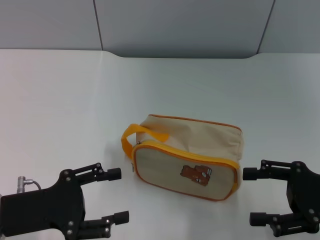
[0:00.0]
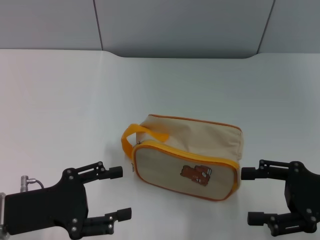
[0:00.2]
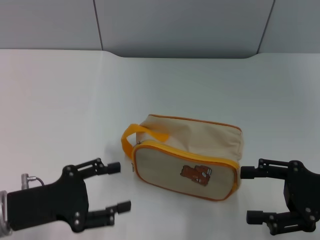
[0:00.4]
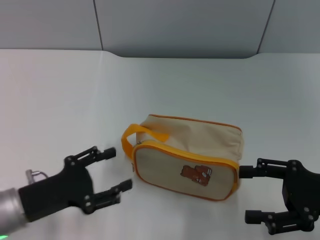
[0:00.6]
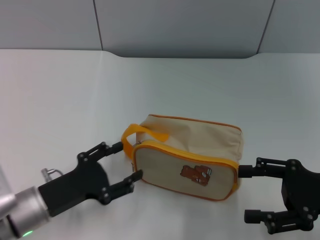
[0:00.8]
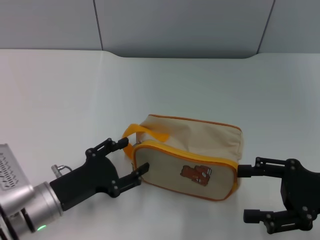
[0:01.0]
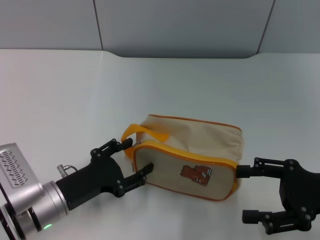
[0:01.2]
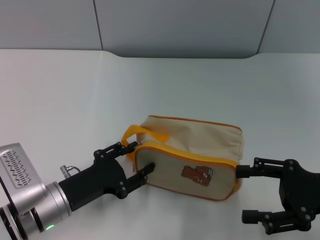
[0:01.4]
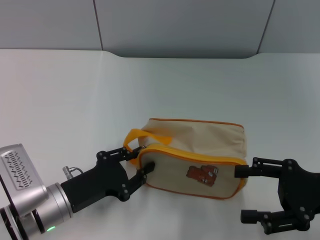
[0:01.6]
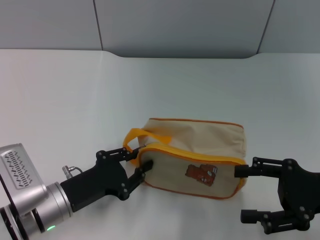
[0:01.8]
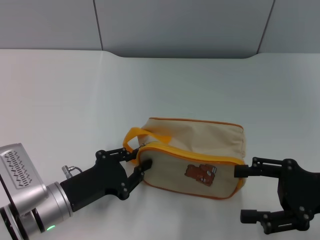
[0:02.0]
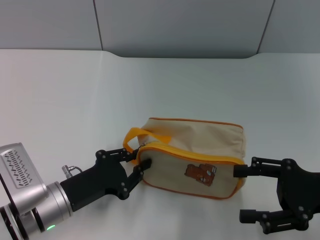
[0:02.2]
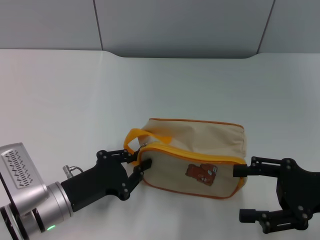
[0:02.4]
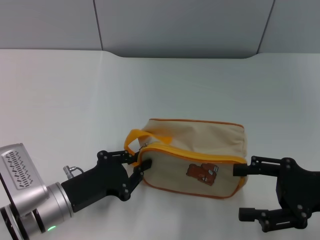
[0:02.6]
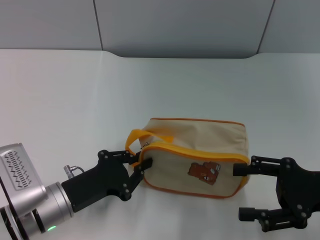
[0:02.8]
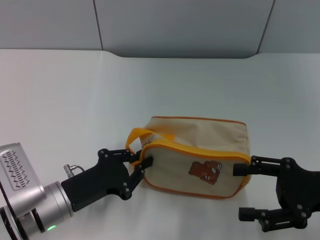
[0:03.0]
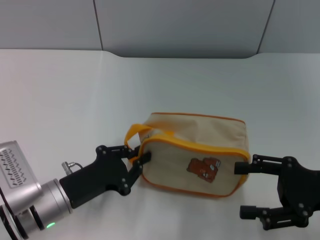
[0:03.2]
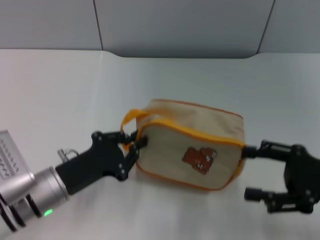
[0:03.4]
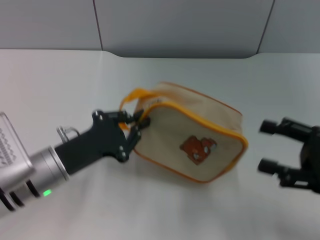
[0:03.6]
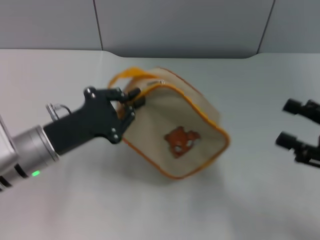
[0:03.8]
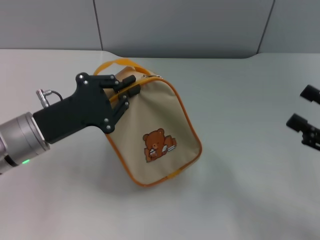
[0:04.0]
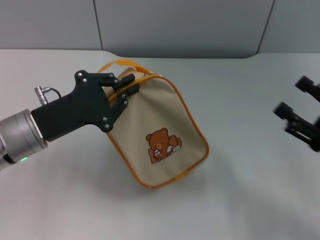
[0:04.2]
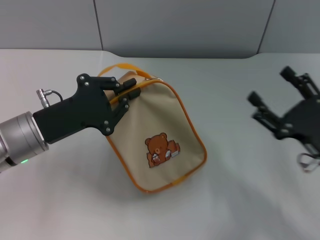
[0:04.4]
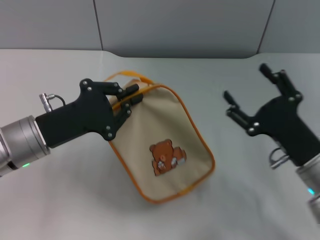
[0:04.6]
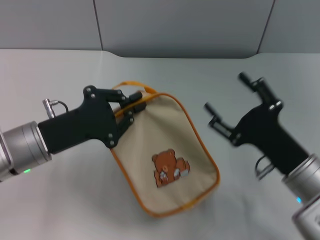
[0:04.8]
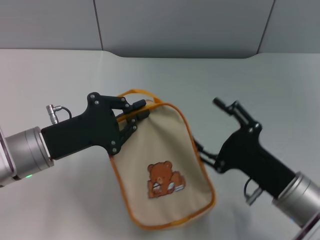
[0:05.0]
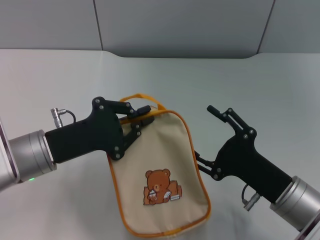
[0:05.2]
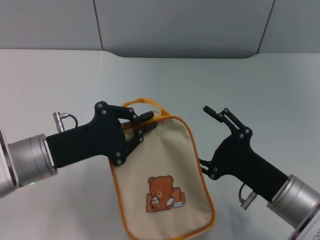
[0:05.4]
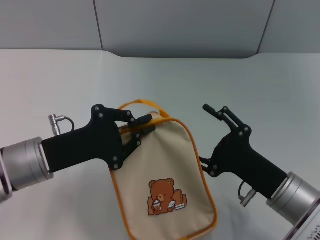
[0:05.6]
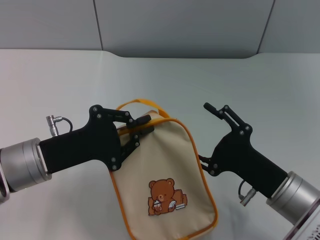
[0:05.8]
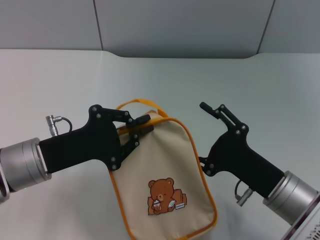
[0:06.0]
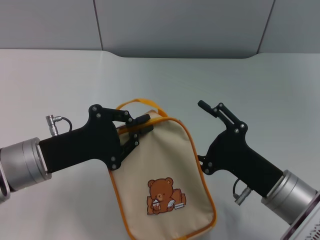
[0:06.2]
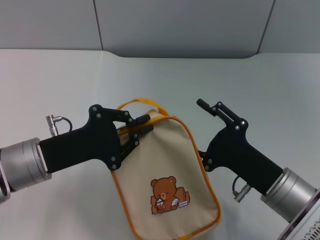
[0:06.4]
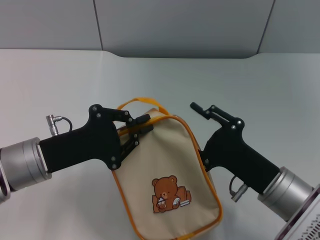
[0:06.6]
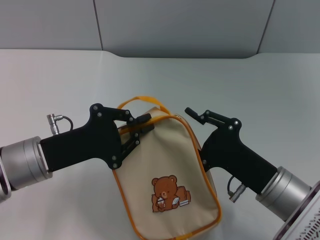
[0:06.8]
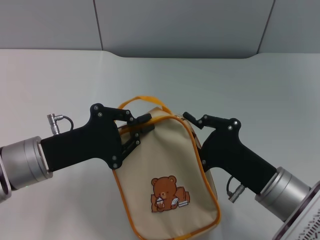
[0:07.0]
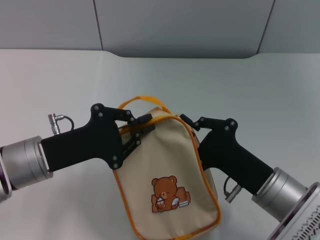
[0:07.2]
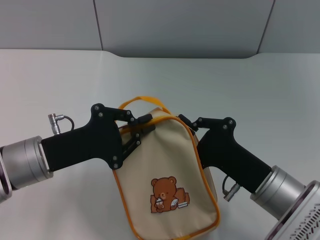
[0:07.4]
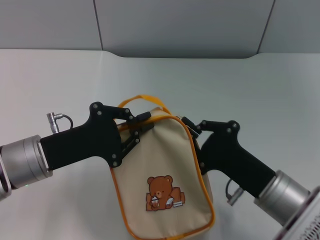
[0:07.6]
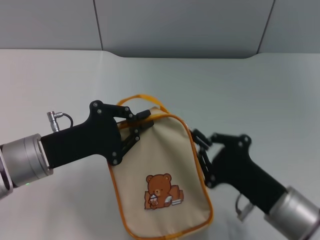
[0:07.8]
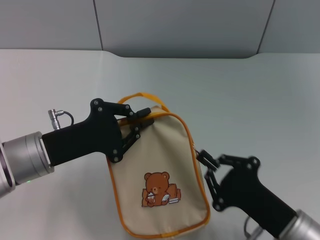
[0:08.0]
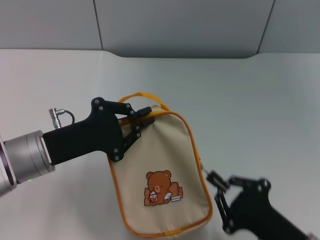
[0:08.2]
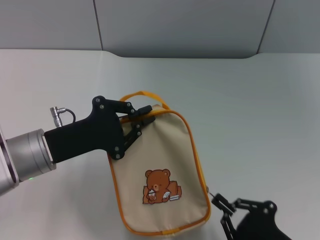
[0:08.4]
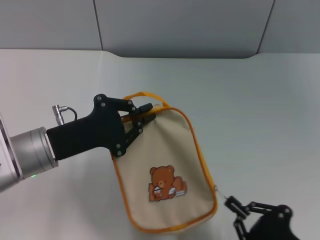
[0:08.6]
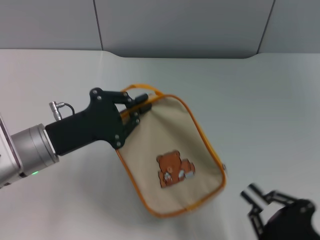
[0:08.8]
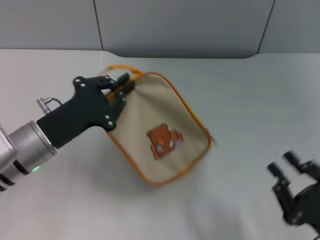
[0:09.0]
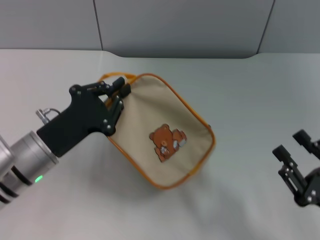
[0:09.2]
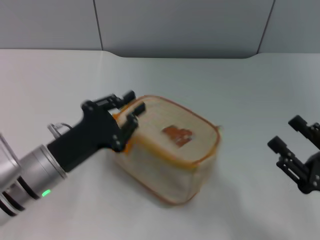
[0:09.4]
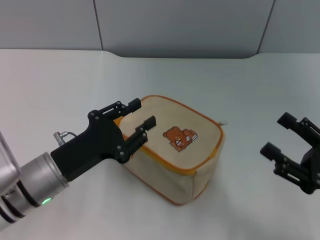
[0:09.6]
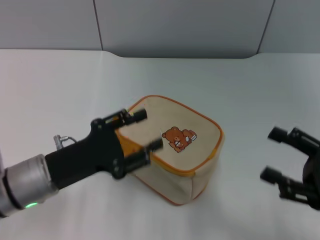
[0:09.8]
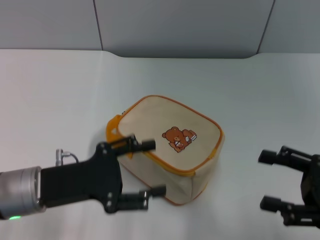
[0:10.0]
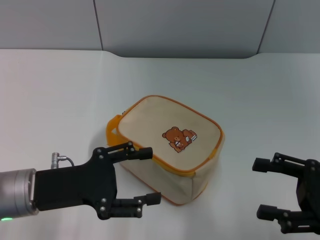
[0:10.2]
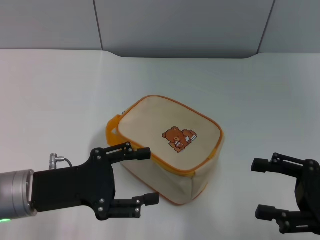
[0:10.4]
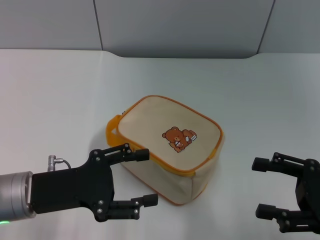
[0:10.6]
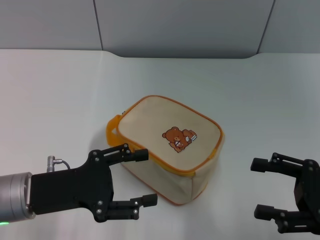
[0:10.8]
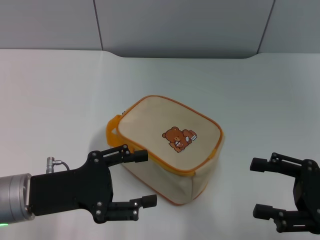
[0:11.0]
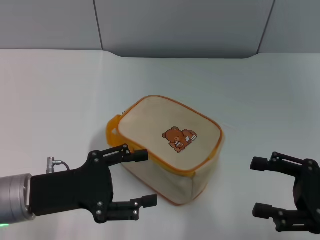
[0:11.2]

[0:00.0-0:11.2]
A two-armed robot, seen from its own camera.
Step, 0:00.0 to 0:03.4: Pick up the bag with left gripper.
Step, 0:03.8 to 0:08.6: Unzip the zipper of bag with right gripper.
Step, 0:09.0 to 0:09.4: Place the bag on the table with left gripper.
0:00.0 to 0:01.6: The left gripper moves downward and to the right, approximately 10 cm.
0:01.6 to 0:03.2: The left gripper closes its fingers.
0:03.2 to 0:04.8: The left gripper moves upward, some 5 cm. The right gripper is displaced to the left and downward by roughly 10 cm.
0:06.4 to 0:08.0: The right gripper goes approximately 5 cm backward, and closes up.
0:08.0 to 0:09.6: The right gripper heads to the right, covering roughly 10 cm, and opens its fingers.
0:09.6 to 0:11.2: The left gripper opens.

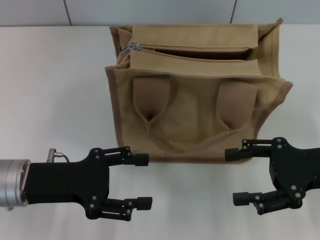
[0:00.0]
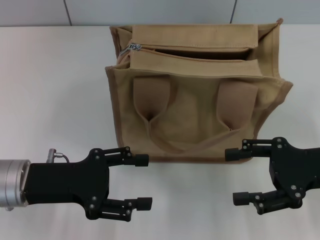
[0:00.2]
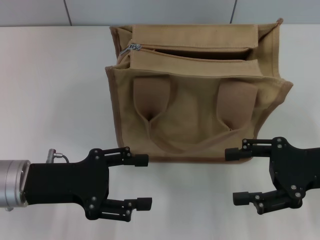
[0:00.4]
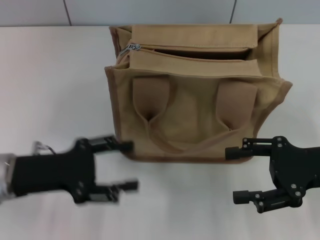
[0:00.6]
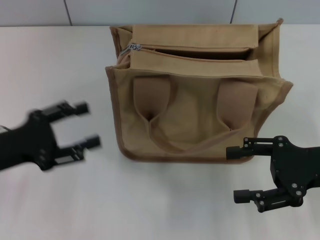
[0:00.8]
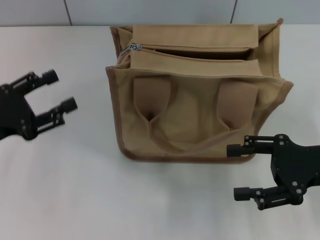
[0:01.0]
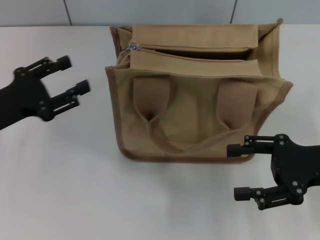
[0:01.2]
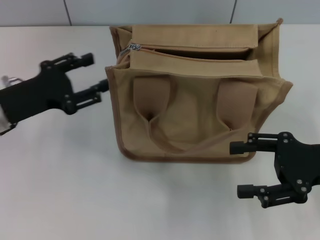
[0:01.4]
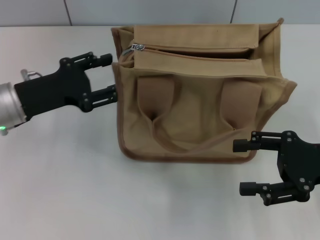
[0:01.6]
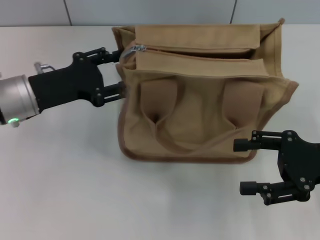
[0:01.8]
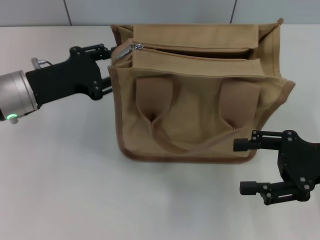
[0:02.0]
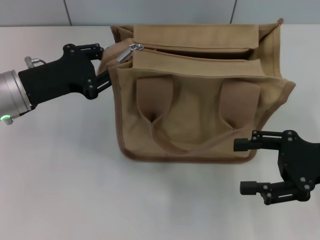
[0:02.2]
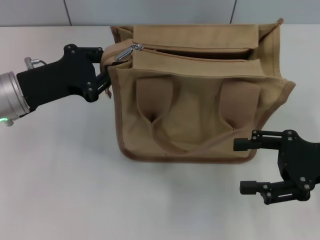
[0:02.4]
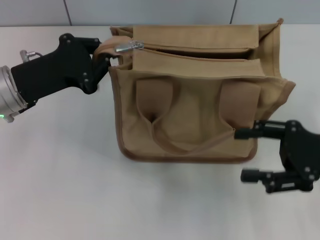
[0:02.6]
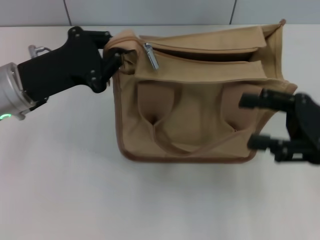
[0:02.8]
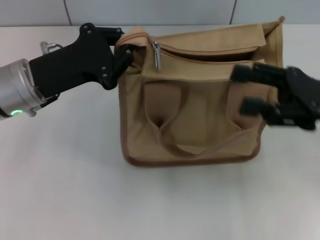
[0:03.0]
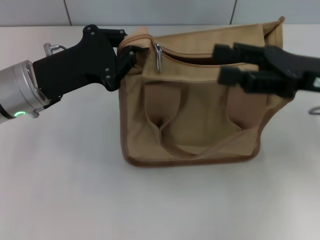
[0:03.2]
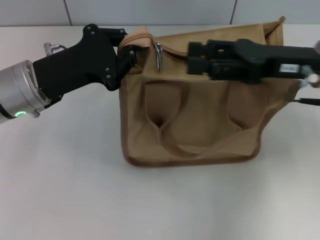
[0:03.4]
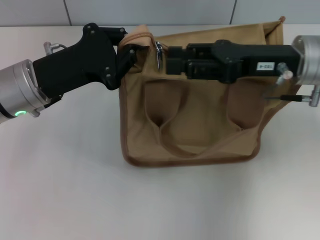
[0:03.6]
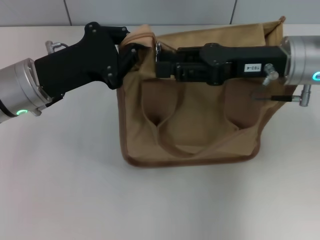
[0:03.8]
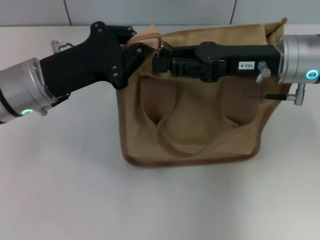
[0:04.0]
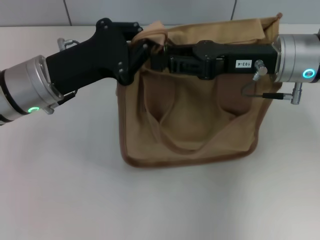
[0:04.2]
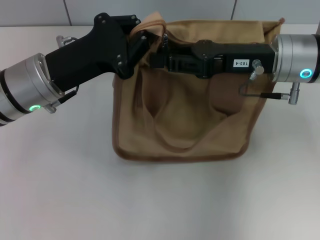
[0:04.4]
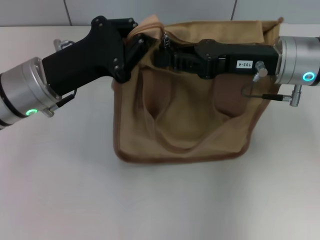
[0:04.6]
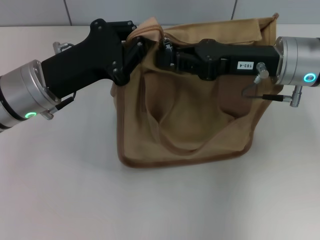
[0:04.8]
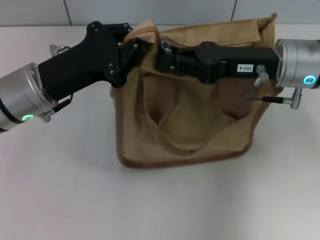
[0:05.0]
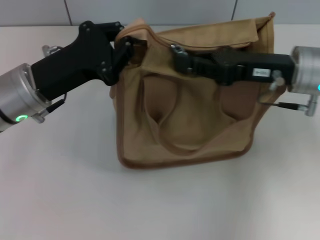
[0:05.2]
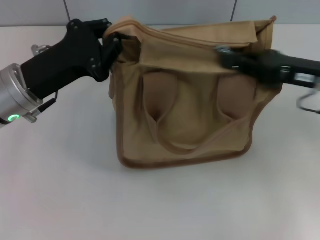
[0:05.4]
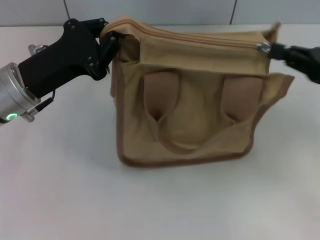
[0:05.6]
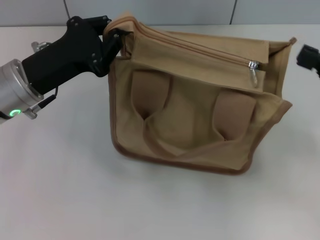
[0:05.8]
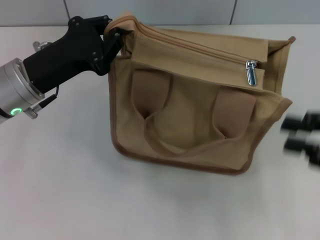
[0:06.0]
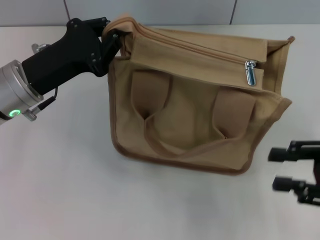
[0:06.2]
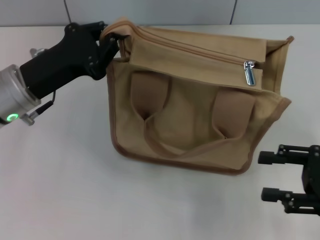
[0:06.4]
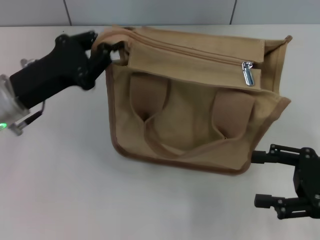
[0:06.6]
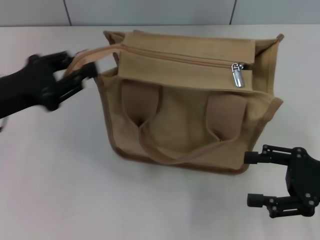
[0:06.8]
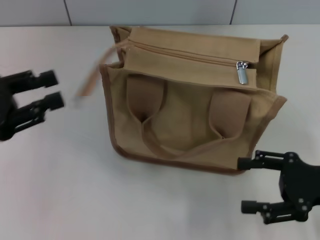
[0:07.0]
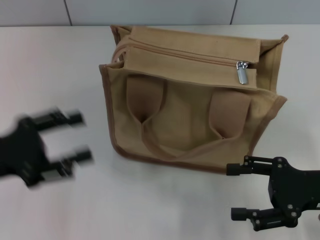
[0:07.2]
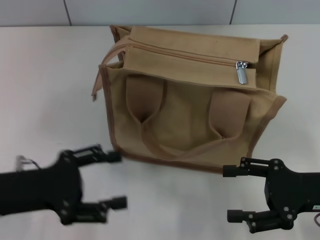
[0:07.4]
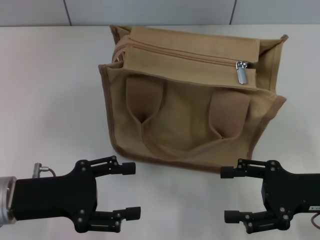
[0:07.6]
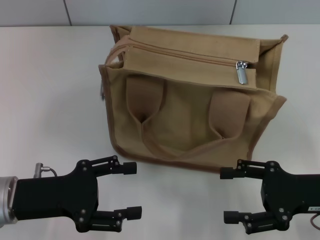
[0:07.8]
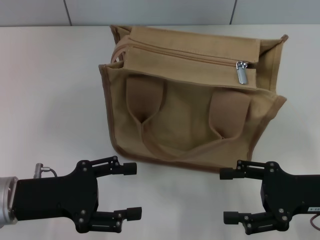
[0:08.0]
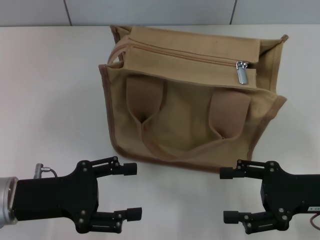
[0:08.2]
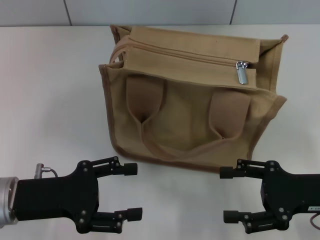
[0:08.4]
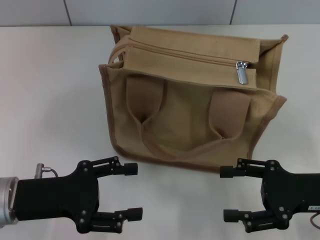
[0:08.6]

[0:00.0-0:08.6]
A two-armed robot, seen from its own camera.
Step, 0:00.0 to 0:05.6: Pull up the zipper with your right hand.
Step, 0:05.8 to 0:06.8: Grab the zipper with your left hand.
0:00.0 to 0:01.4: The left gripper shifts roughly 5 cm forward.
0:01.4 to 0:02.8: The left gripper changes place by approximately 5 cm, and closes.
0:02.8 to 0:04.4: The right gripper is displaced to the left and forward by about 15 cm, and closes.
0:04.4 to 0:05.8: The right gripper goes approximately 20 cm to the right and backward.
0:05.8 to 0:07.2: The left gripper moves backward and to the left, roughly 10 cm, and opens up. The right gripper is displaced downward and to the left by approximately 10 cm, and opens.
0:07.2 to 0:08.6: The left gripper heads to the right, covering about 5 cm.

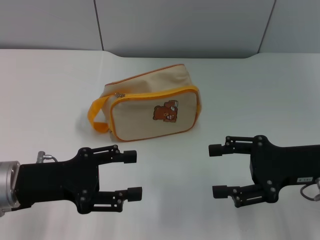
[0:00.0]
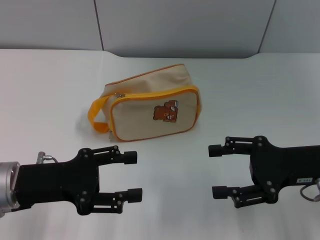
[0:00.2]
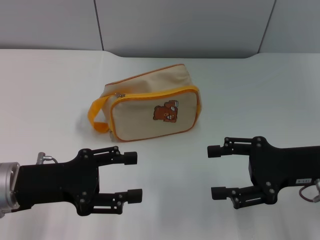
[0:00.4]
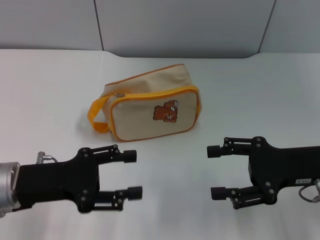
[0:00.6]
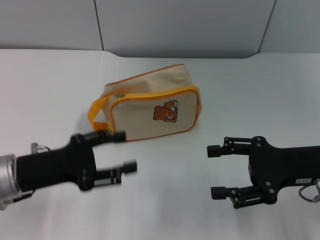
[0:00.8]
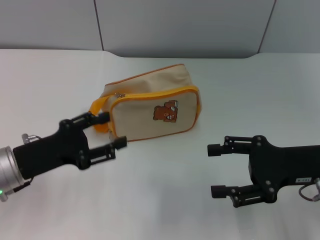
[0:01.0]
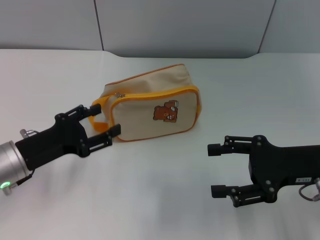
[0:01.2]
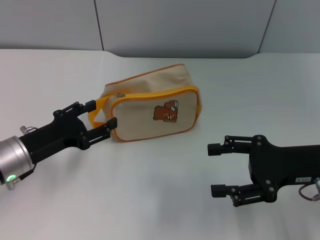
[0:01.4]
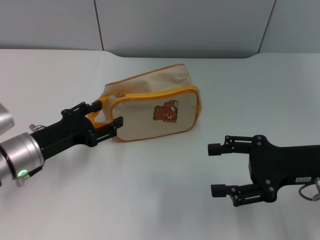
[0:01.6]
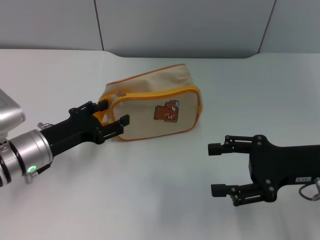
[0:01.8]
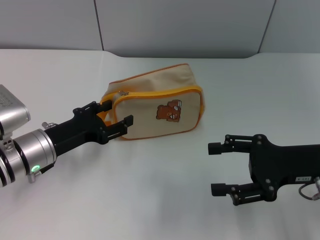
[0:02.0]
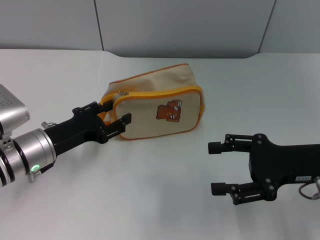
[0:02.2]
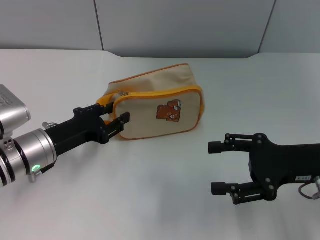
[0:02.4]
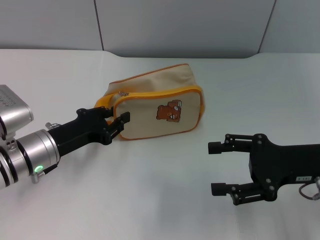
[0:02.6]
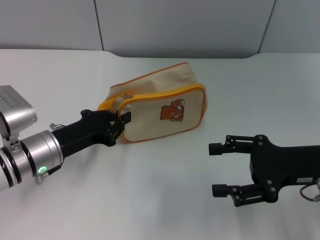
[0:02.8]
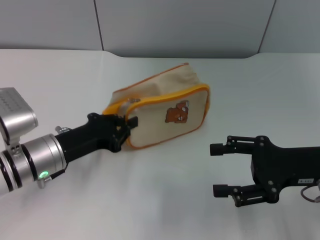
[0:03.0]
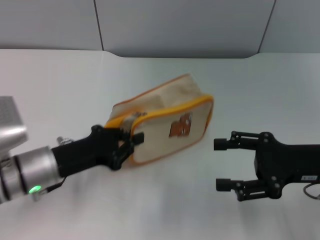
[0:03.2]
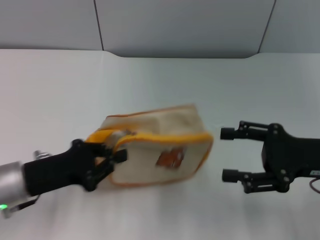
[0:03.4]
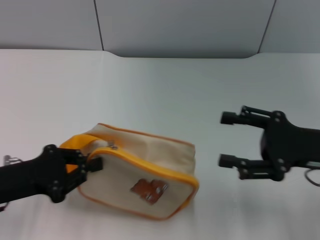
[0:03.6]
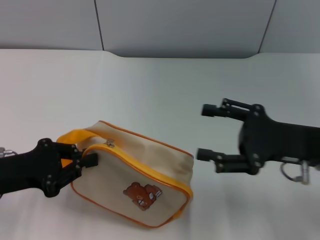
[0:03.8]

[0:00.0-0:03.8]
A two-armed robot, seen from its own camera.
Step, 0:00.0 to 0:03.4: Pick up the bag with left gripper.
0:01.2 to 0:02.6: The grippers move only a little.
0:02.6 to 0:03.8: The left gripper goes about 10 cm to the left and backward, and closes up.
